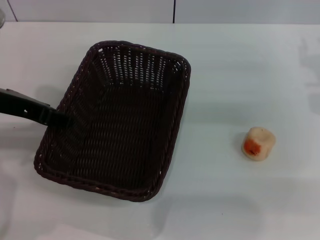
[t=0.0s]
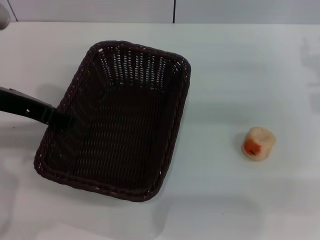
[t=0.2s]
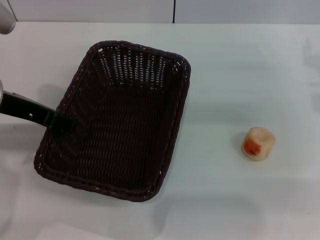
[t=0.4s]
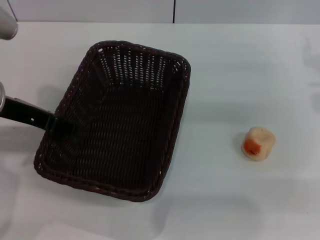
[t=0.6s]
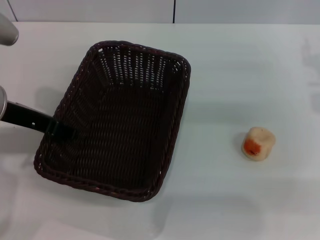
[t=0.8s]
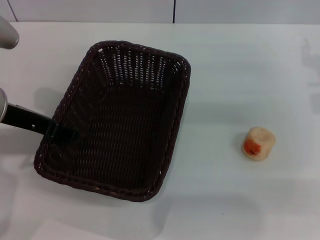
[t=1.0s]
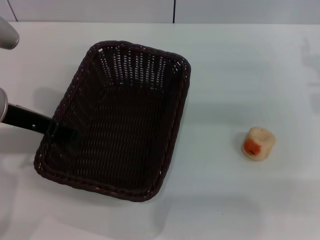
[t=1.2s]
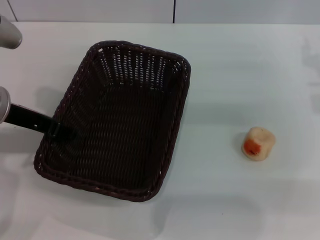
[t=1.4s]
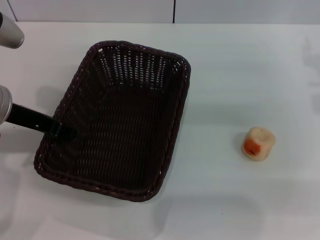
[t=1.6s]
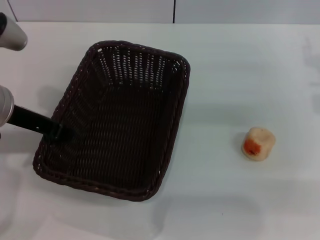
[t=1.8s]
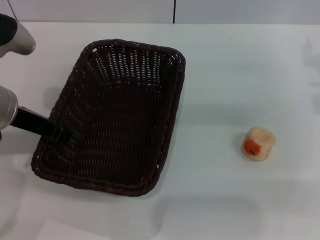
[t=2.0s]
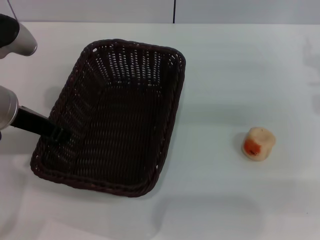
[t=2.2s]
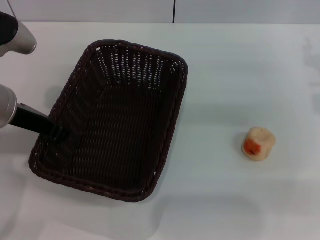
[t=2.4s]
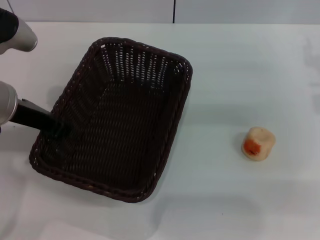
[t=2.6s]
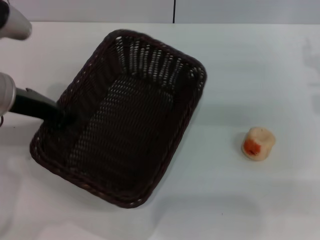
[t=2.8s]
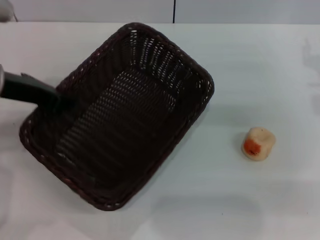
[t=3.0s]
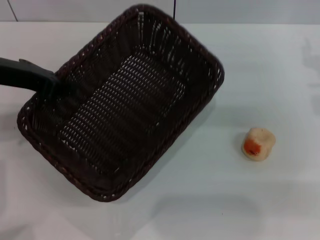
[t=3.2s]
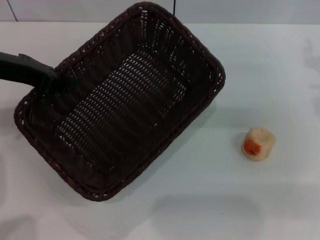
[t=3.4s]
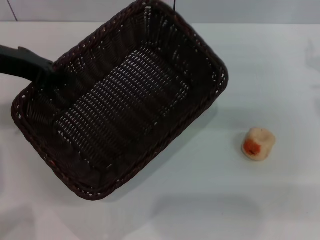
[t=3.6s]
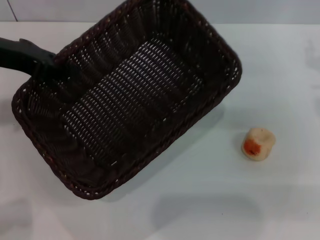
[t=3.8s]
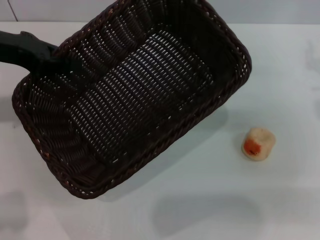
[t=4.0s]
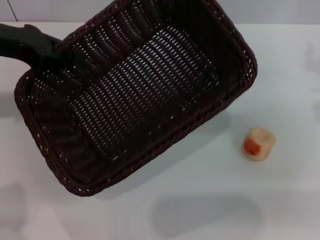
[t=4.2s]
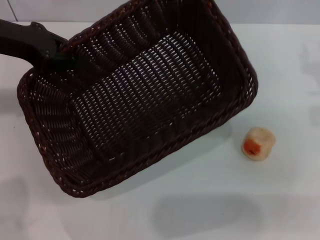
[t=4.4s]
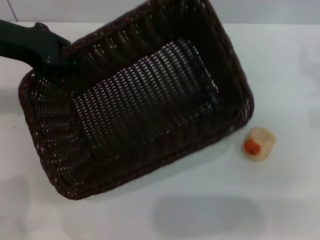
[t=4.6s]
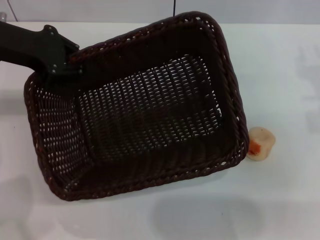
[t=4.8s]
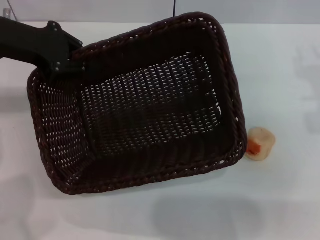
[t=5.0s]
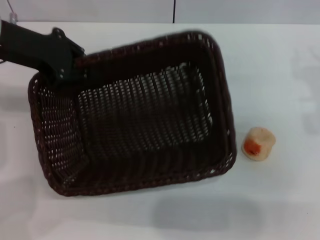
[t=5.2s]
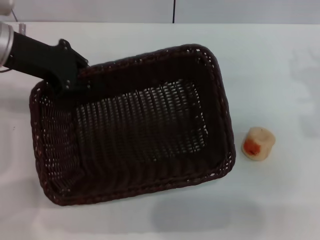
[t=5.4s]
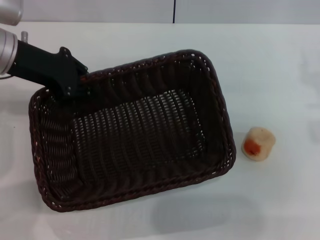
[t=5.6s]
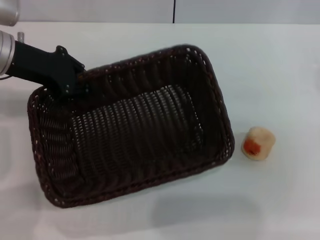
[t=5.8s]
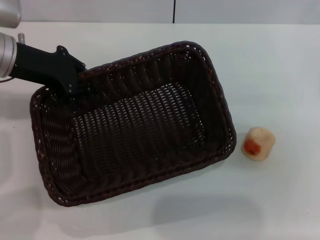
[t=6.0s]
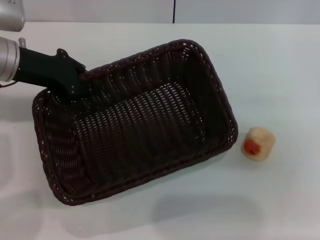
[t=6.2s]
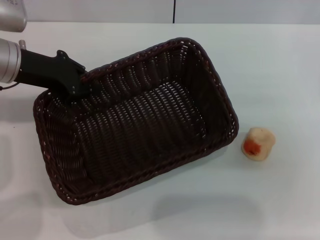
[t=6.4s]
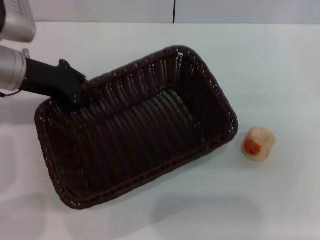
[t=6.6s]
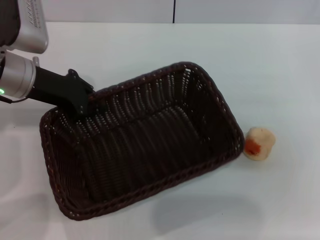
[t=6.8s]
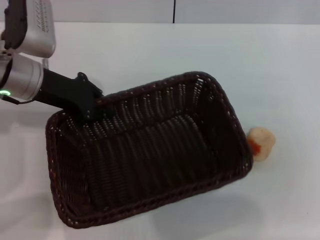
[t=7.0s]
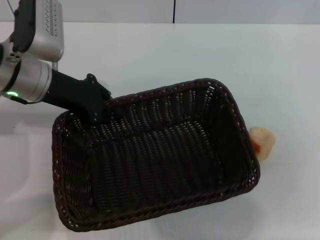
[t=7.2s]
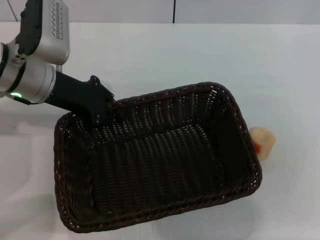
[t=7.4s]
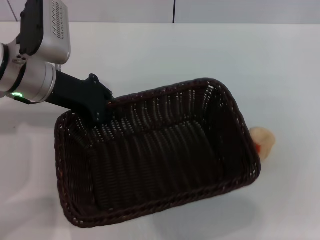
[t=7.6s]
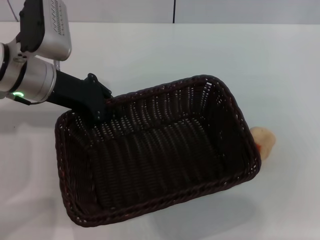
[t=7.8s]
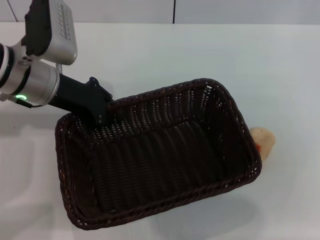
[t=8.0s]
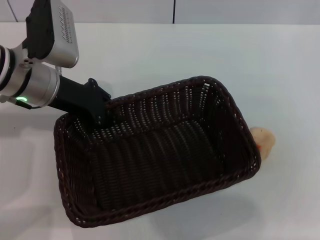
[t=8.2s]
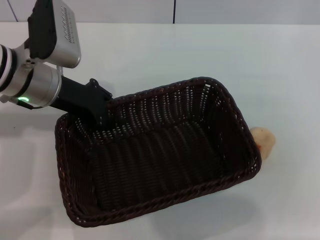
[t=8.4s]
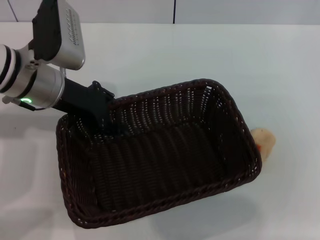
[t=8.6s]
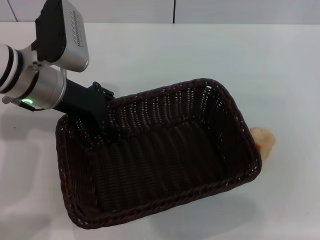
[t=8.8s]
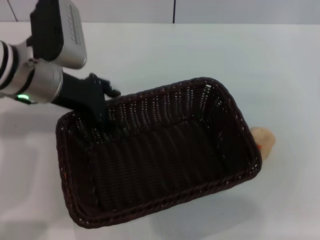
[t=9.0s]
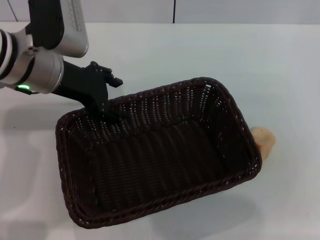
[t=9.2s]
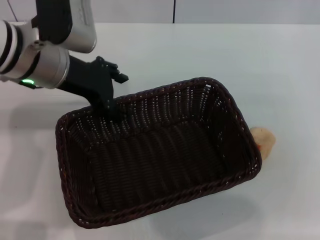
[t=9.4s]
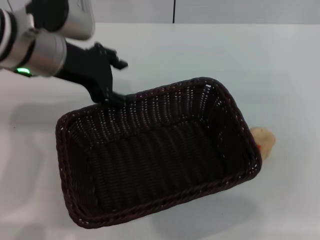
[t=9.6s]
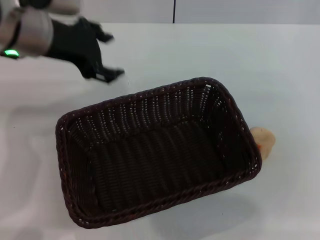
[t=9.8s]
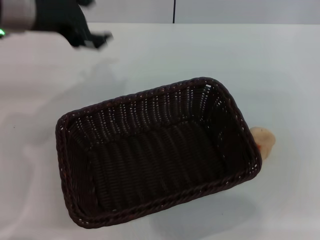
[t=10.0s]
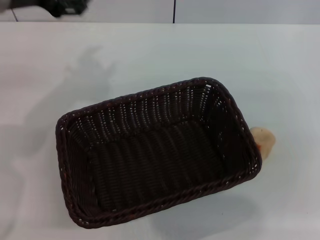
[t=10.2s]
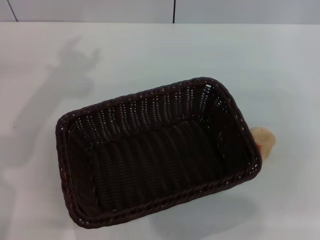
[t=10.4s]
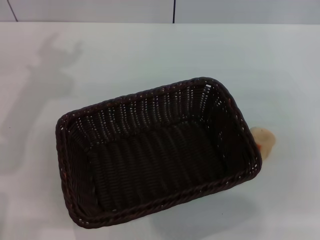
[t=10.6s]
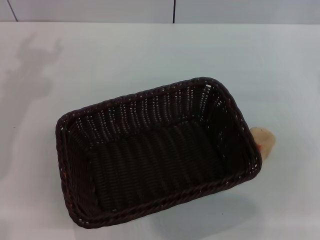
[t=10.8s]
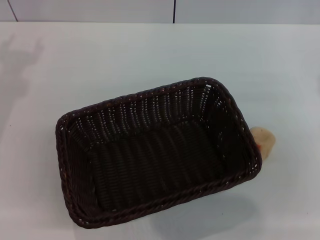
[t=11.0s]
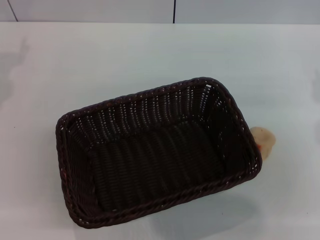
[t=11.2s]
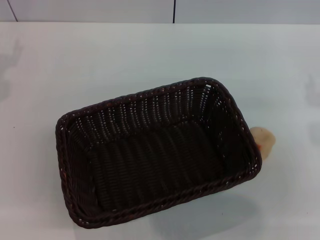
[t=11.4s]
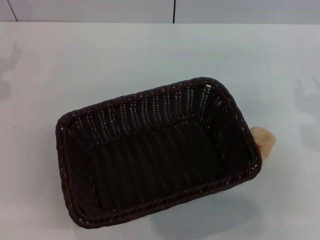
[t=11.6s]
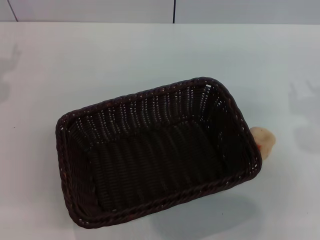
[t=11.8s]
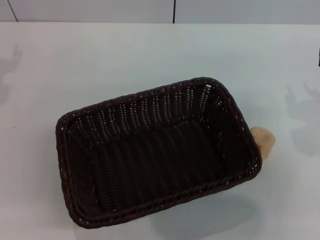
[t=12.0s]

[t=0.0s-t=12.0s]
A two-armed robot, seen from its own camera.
Step, t=0.0s to t=9.8s: Move the basket to the center of view with the left gripper.
t=0.0s to t=1.6s: The grippers make only small movements.
t=1.6s to t=3.0s: The left gripper closes its fingers.
t=3.0s to t=4.4s: The left gripper goes about 5 cm forward.
t=4.4s to t=6.0s: The left gripper changes place by some 5 cm; the right gripper is displaced backward by roughly 5 cm.
t=6.0s to t=7.6s: The left gripper moves approximately 5 cm.
t=7.6s to t=9.0s: The left gripper opens up.
t=9.0s to t=10.4s: The left gripper shifts some 10 cm upward.

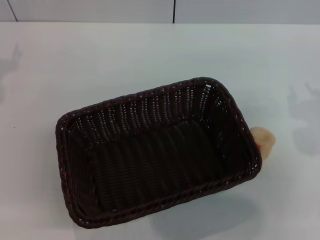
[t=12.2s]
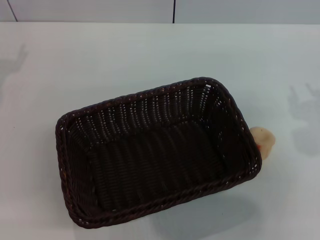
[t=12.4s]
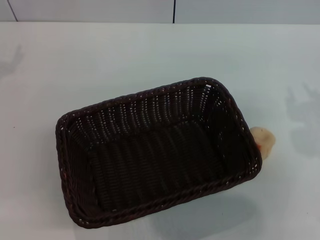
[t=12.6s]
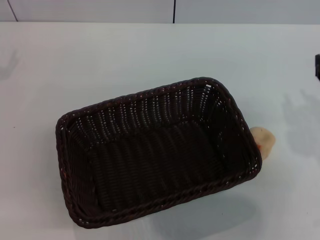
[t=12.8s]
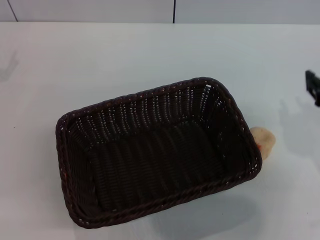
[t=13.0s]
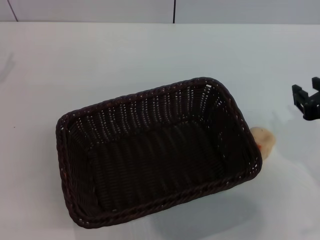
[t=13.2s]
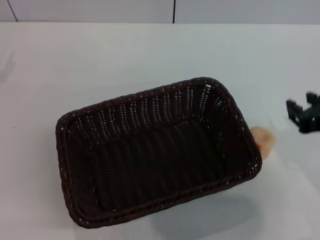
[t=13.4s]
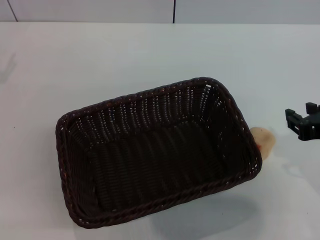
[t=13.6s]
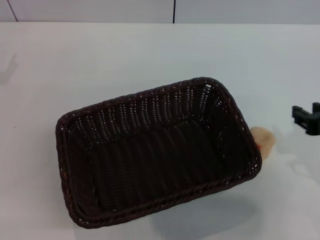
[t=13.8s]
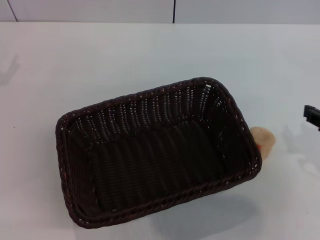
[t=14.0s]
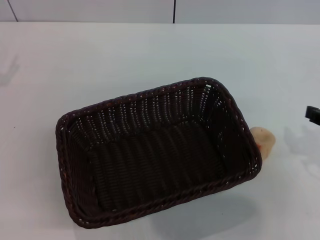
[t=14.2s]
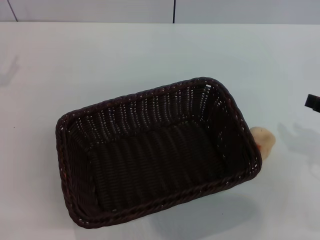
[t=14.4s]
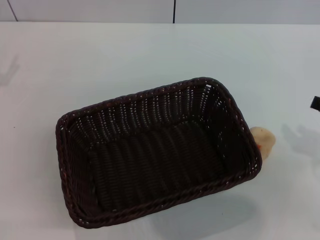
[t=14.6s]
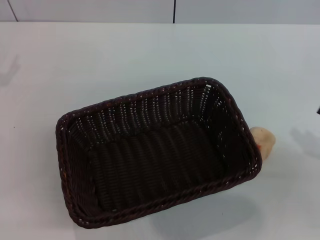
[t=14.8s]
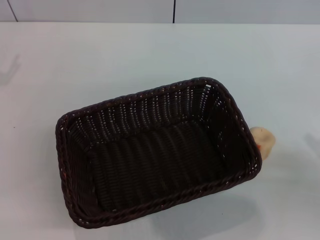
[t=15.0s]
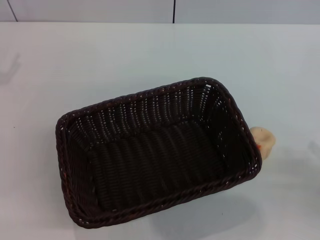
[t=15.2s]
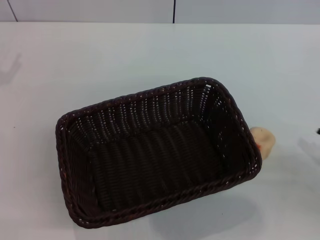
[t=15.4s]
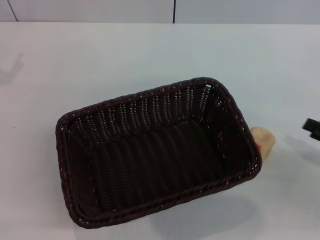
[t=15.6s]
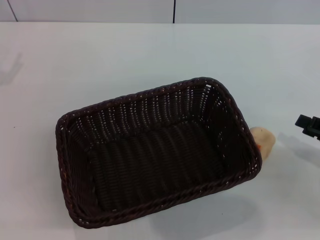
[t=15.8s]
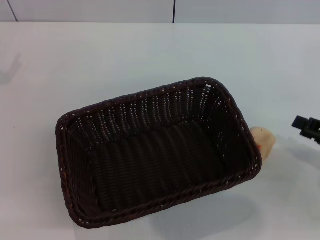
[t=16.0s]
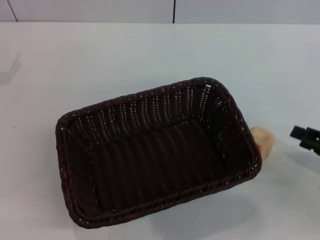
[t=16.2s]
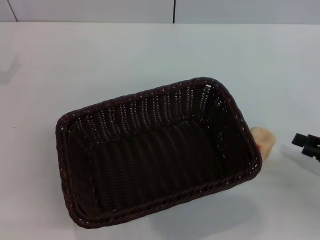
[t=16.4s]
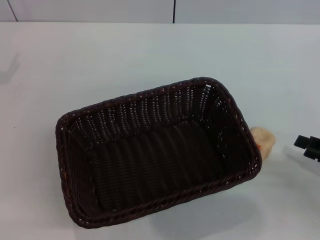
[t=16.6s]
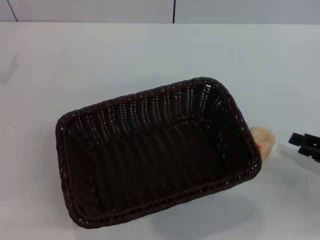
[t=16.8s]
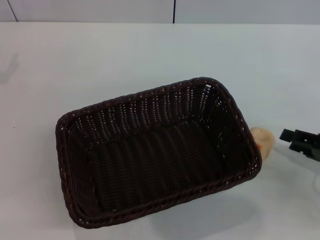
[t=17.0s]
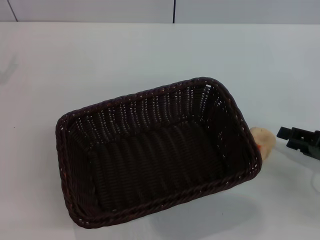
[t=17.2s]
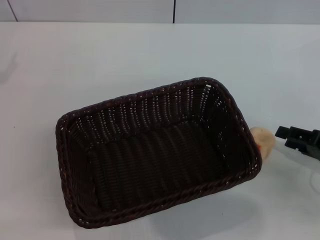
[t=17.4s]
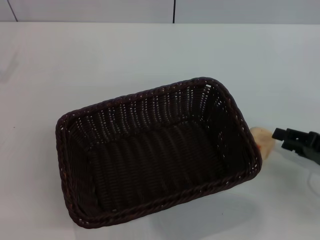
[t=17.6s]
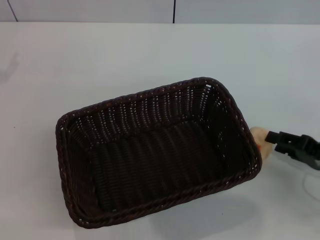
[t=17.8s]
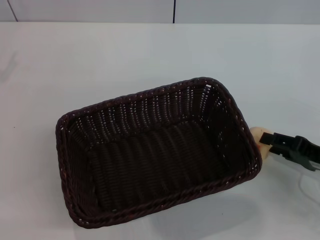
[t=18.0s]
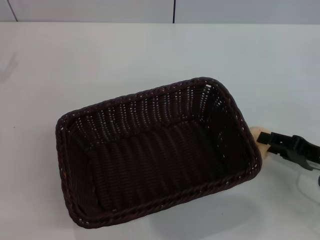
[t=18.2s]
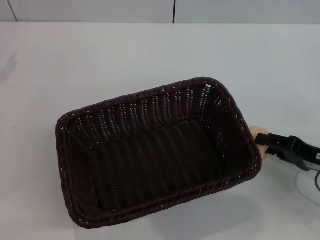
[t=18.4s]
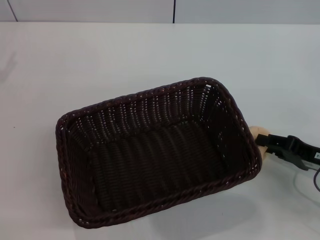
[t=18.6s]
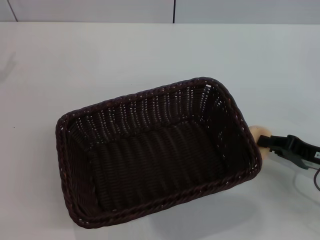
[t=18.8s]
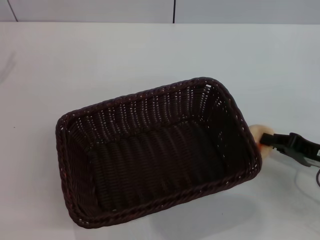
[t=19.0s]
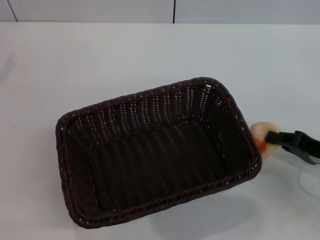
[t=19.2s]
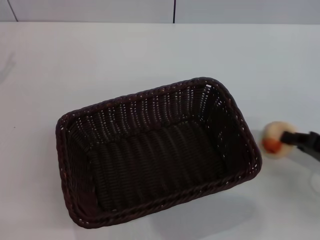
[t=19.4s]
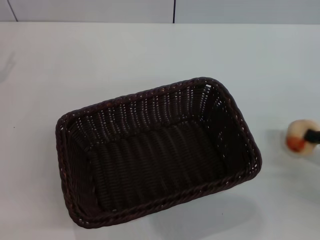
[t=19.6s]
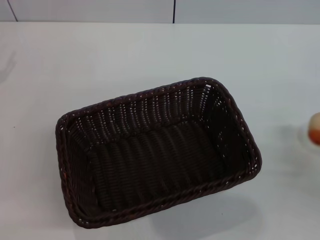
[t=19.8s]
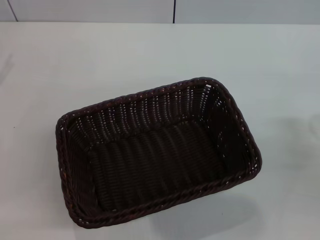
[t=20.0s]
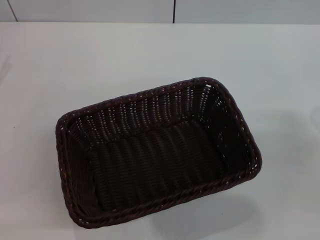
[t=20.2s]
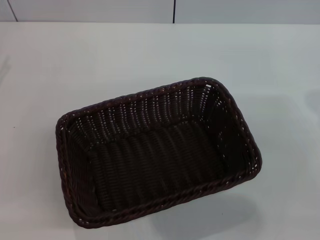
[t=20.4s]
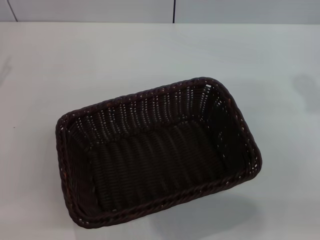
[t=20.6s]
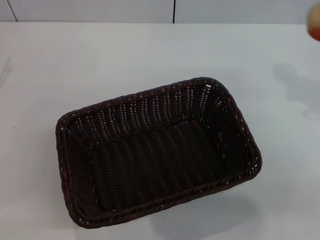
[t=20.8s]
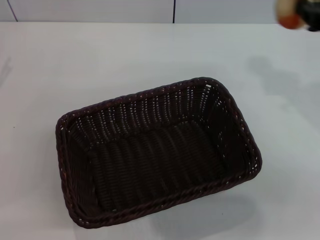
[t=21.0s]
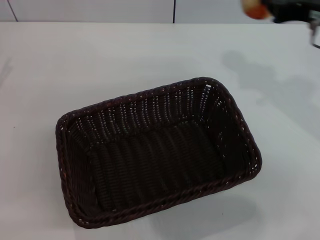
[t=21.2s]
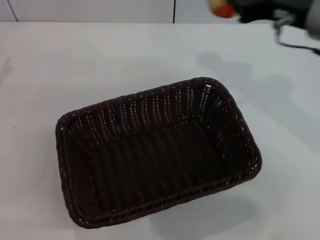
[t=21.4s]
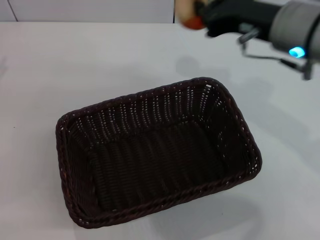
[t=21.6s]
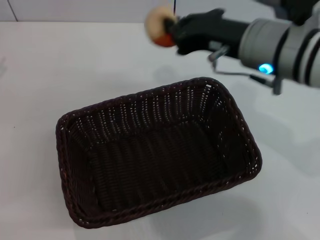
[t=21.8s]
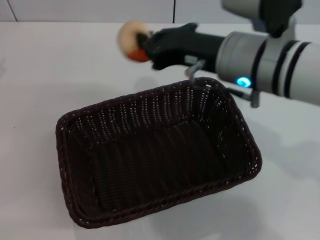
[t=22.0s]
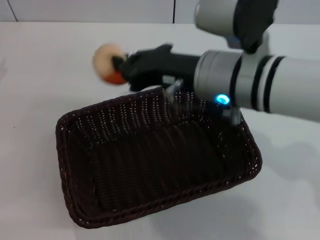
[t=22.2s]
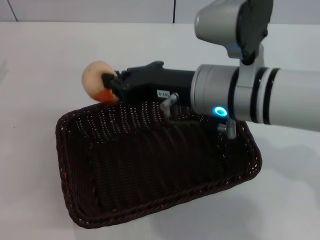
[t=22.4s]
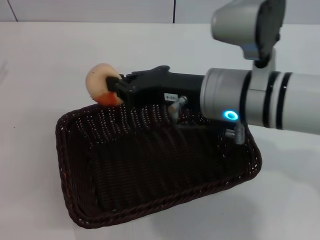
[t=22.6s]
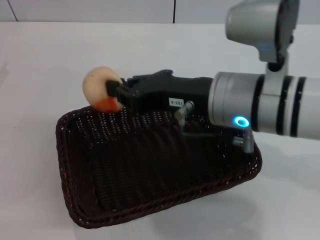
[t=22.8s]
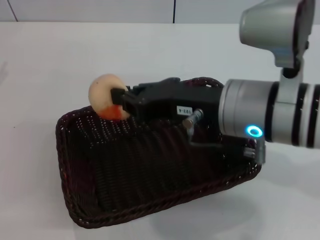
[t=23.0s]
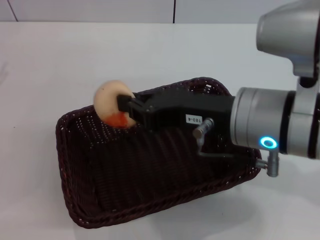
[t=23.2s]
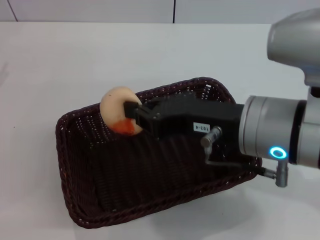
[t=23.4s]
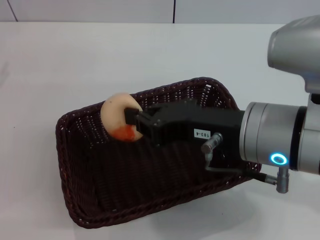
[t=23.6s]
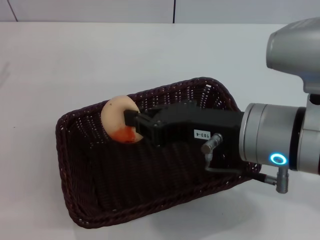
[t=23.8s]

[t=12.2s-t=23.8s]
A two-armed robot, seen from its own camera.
Step, t=12.2s to t=19.4s: Pick up the egg yolk pastry with the right gripper.
t=13.6s to t=15.0s: The right gripper is displaced to the right by roughly 10 cm.
t=16.6s to t=18.0s: The right gripper ends up roughly 5 cm from where it was.
t=18.0s to t=19.4s: The right gripper closes.
t=19.4s to t=21.0s: The right gripper is displaced upward and forward by about 20 cm.
t=21.0s to t=22.4s: The right gripper moves to the left, approximately 20 cm.
t=22.4s to t=23.8s: The right gripper moves backward, about 5 cm.
